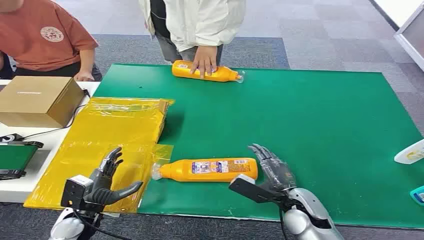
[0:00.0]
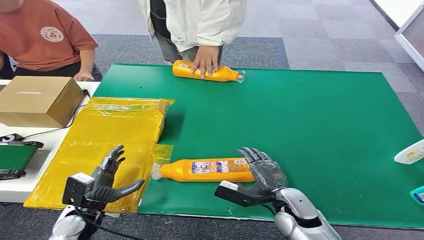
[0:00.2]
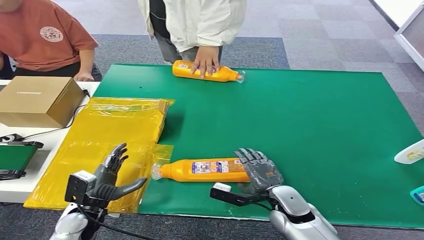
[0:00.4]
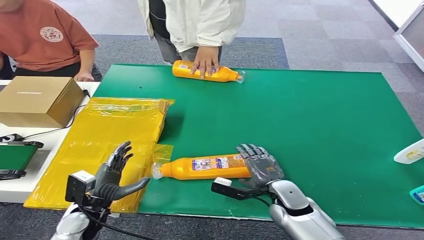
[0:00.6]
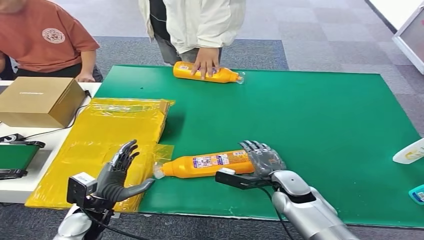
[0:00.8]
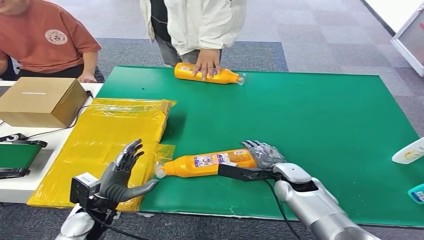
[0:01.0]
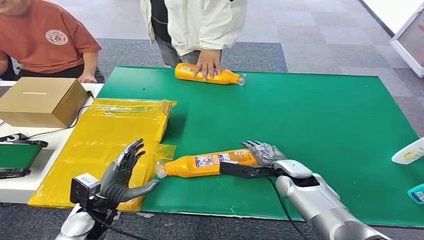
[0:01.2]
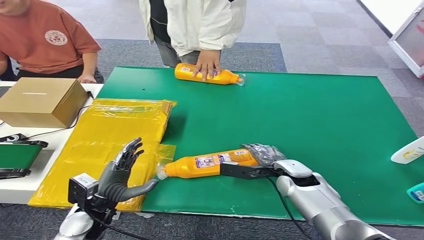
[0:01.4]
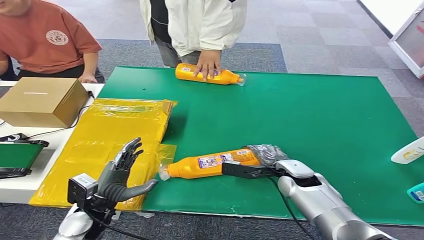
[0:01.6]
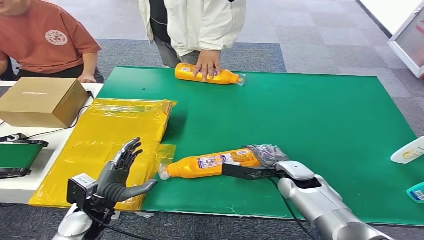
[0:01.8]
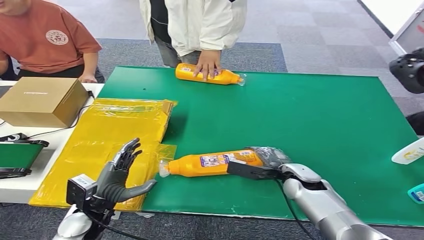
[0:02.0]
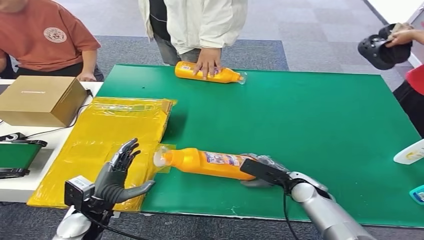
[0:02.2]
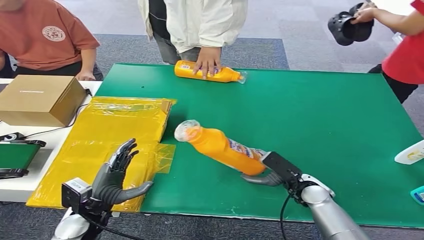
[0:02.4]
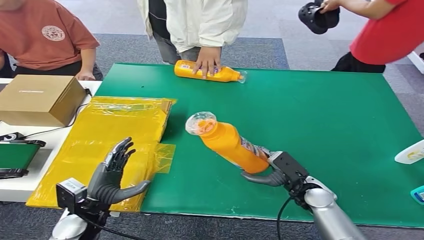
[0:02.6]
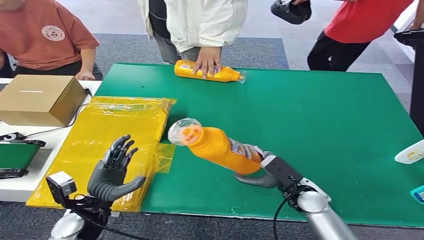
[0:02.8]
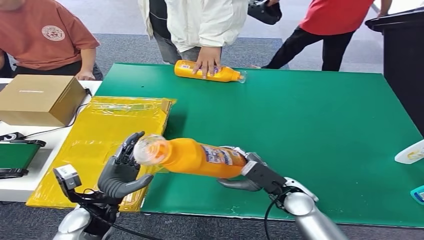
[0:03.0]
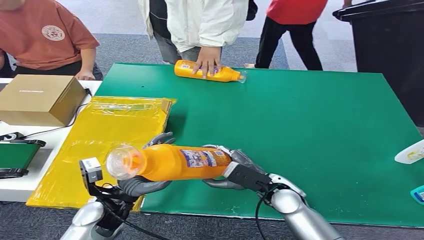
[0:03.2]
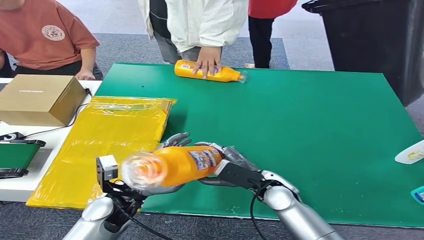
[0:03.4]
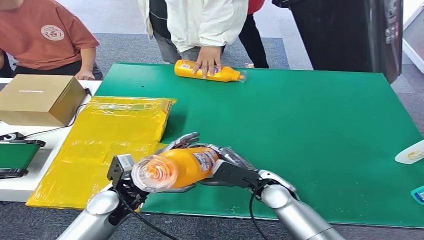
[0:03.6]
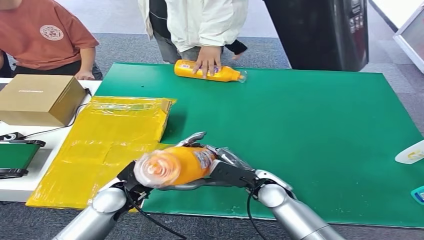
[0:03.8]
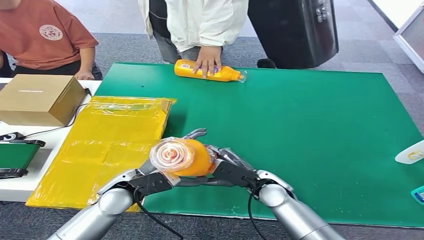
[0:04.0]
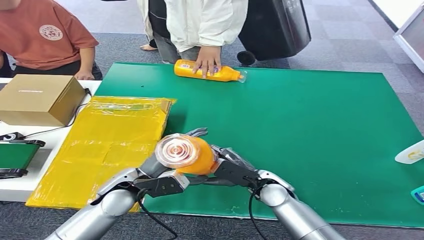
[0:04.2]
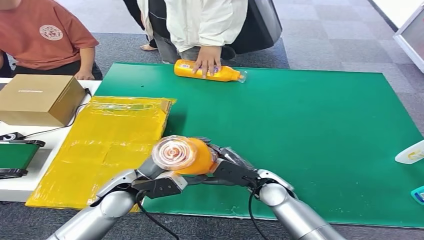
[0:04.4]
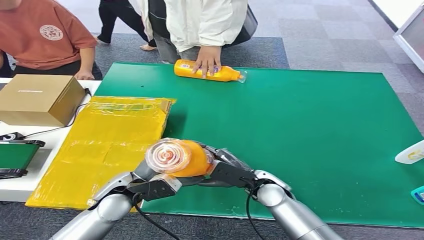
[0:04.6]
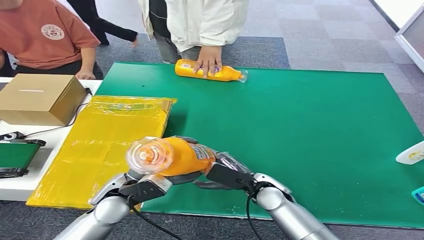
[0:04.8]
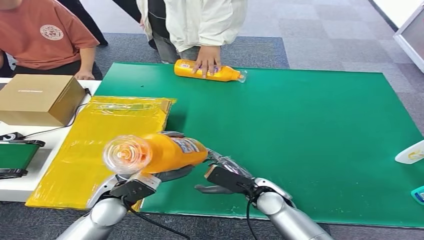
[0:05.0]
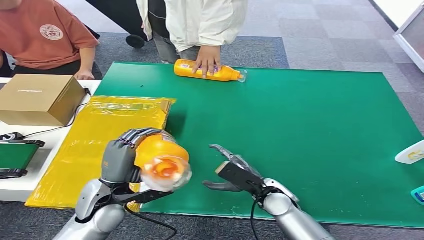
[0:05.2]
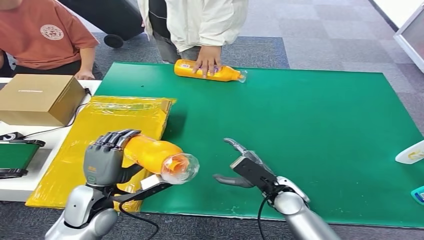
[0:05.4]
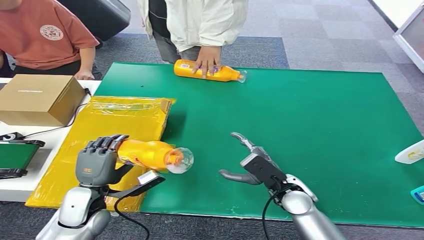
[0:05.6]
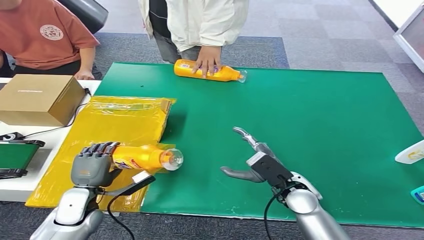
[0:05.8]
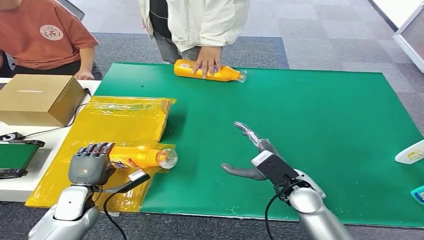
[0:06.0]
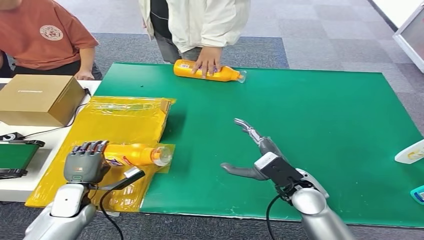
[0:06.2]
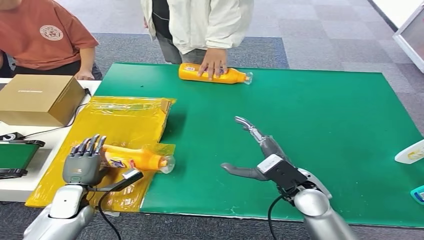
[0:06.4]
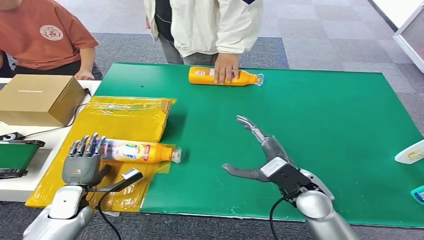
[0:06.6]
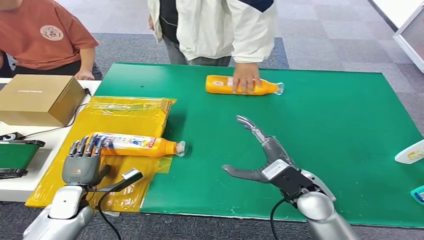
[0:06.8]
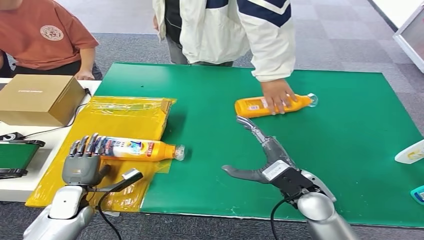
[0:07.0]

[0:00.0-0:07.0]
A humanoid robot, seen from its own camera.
Step, 0:00.0 to 0:02.6: Pick up the bottle from the table.
Step, 0:02.8 to 0:07.0: Turn the bottle to the front side.

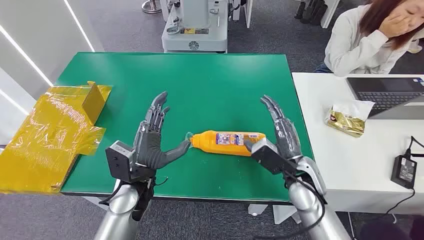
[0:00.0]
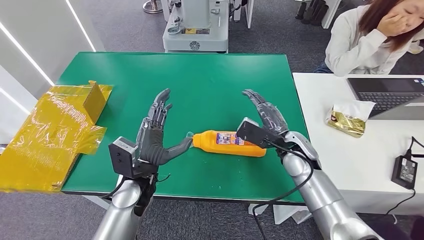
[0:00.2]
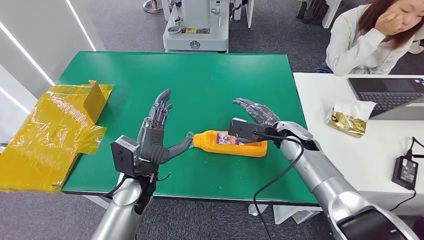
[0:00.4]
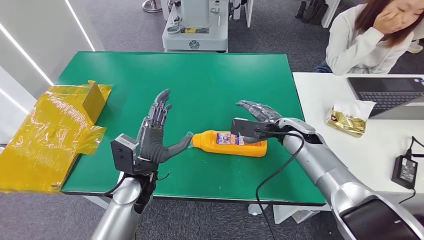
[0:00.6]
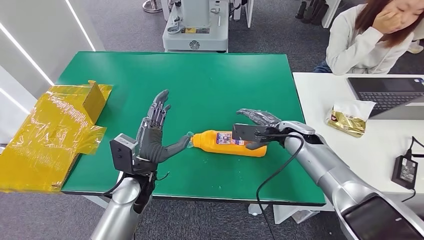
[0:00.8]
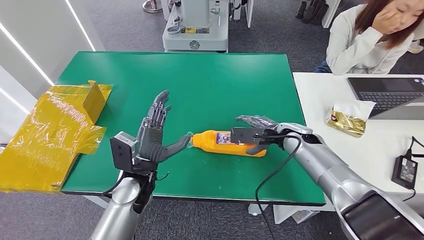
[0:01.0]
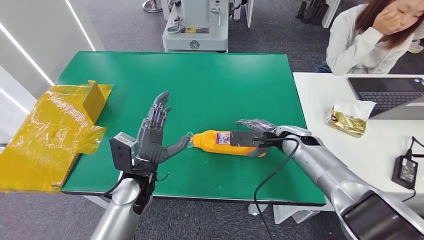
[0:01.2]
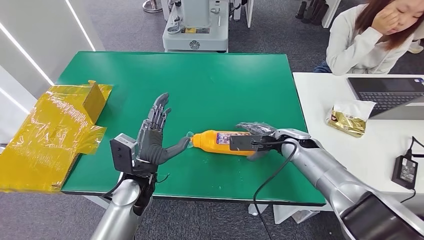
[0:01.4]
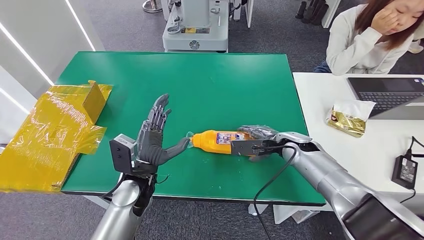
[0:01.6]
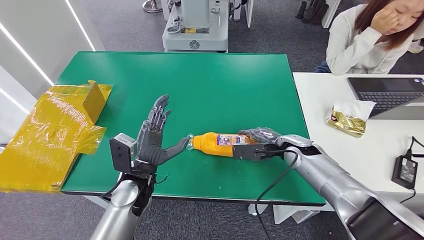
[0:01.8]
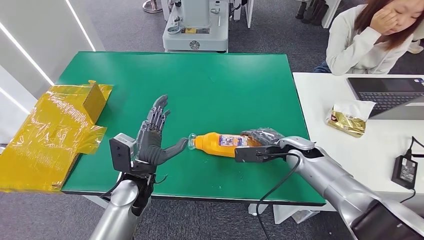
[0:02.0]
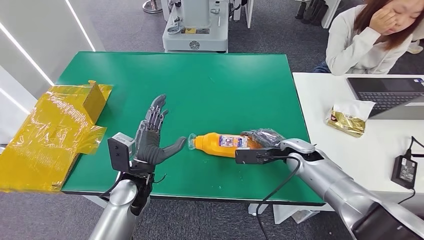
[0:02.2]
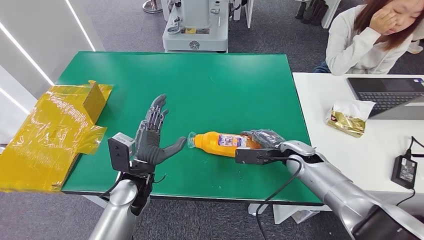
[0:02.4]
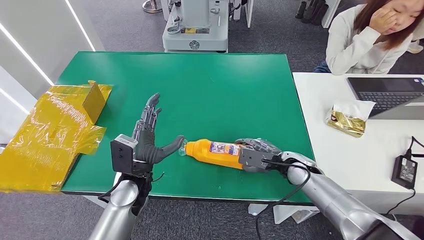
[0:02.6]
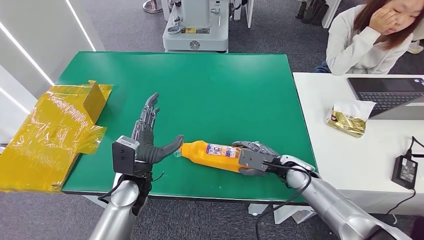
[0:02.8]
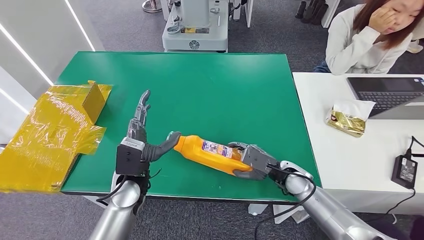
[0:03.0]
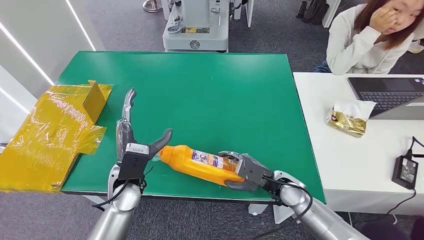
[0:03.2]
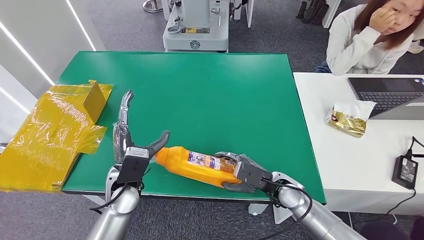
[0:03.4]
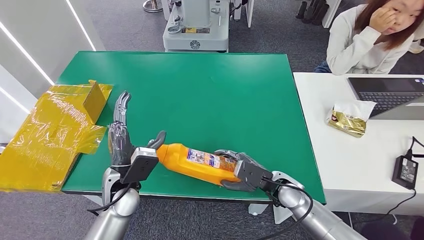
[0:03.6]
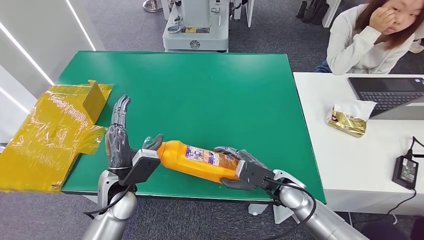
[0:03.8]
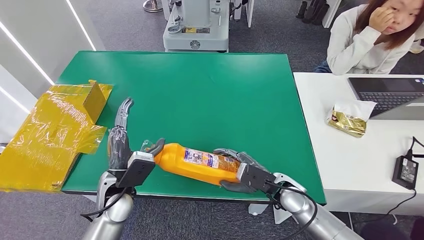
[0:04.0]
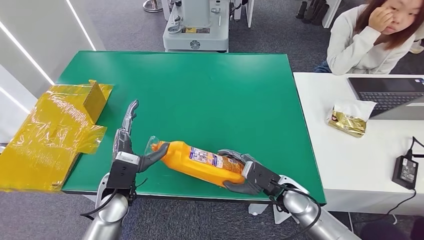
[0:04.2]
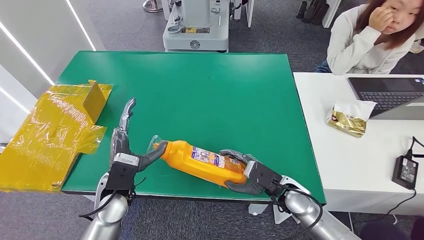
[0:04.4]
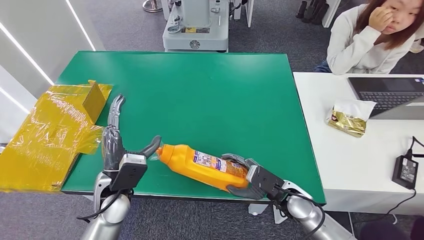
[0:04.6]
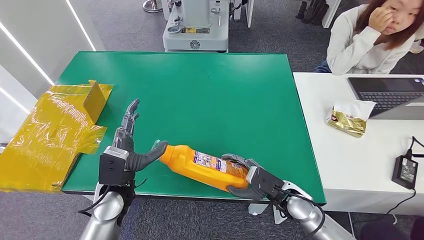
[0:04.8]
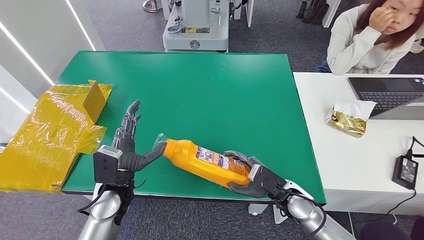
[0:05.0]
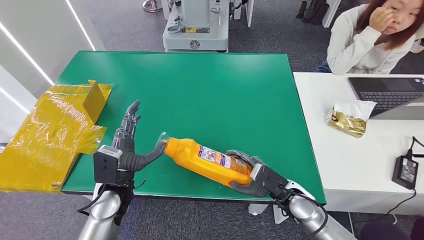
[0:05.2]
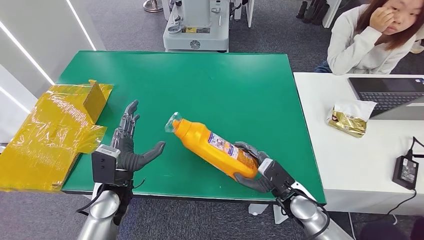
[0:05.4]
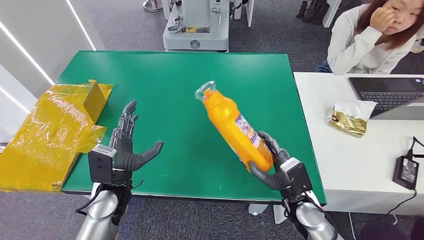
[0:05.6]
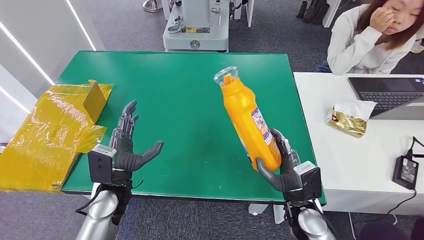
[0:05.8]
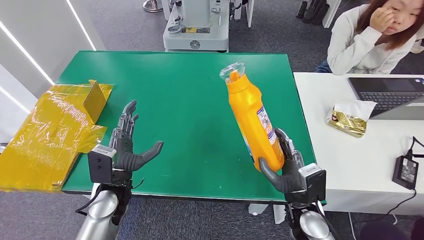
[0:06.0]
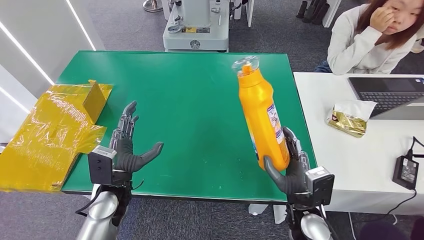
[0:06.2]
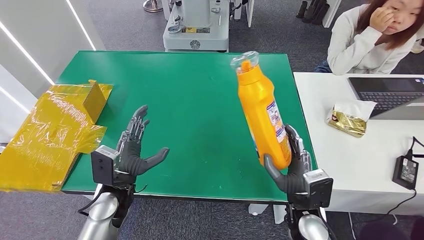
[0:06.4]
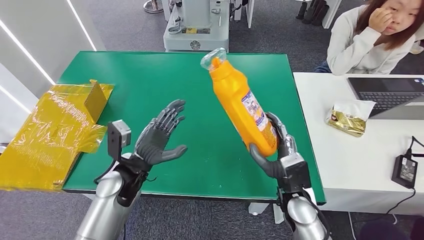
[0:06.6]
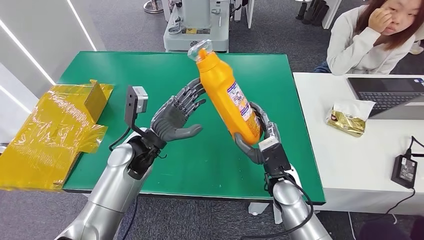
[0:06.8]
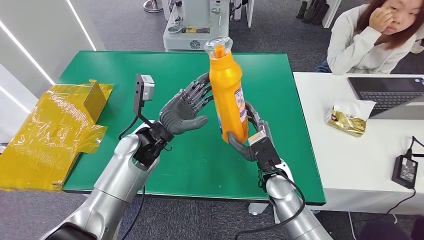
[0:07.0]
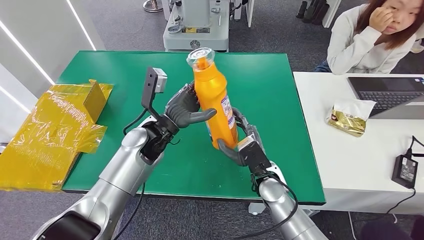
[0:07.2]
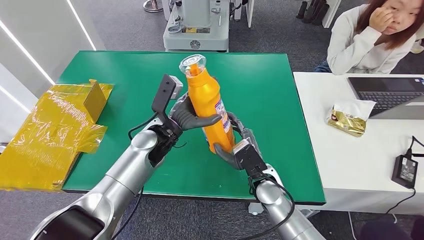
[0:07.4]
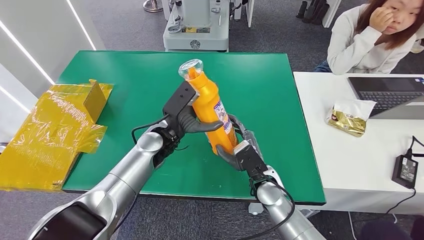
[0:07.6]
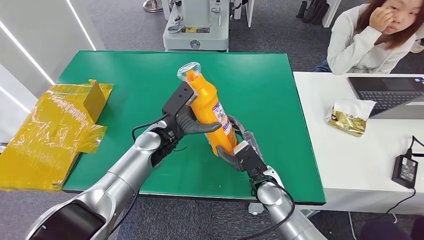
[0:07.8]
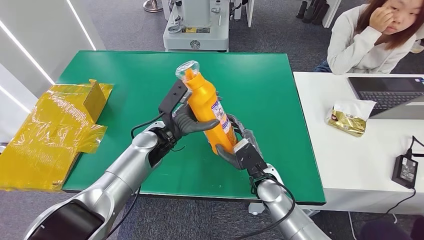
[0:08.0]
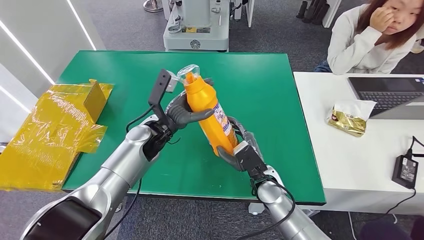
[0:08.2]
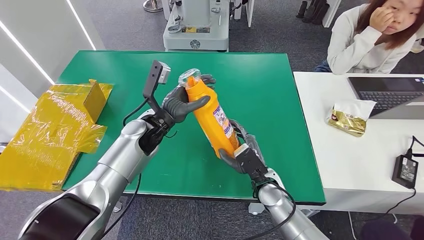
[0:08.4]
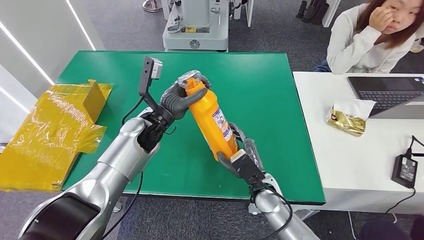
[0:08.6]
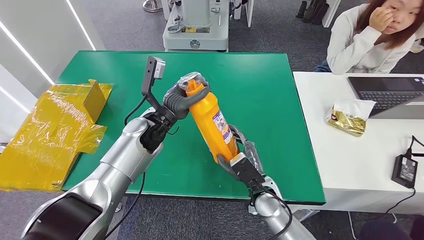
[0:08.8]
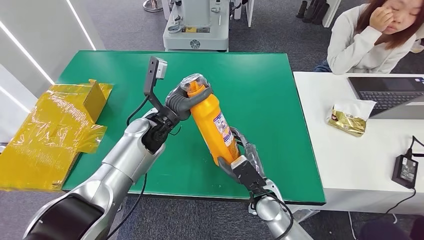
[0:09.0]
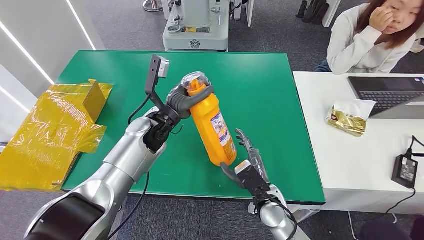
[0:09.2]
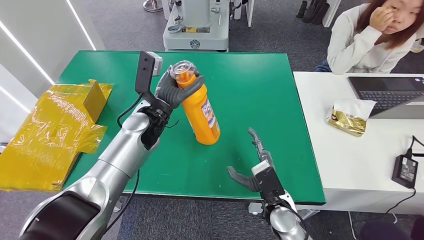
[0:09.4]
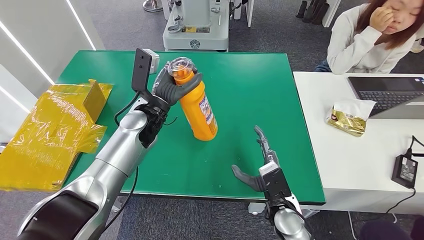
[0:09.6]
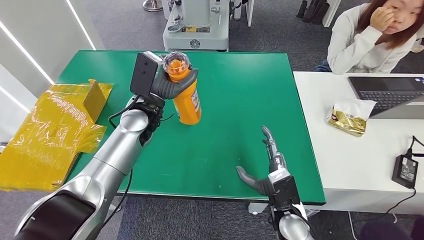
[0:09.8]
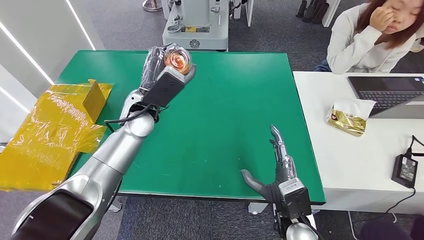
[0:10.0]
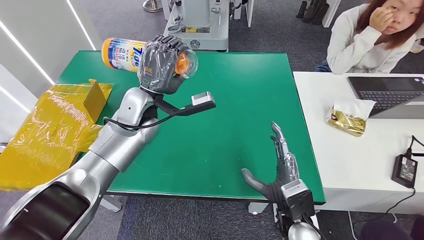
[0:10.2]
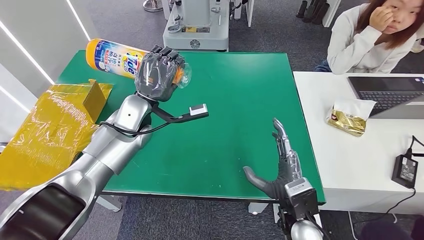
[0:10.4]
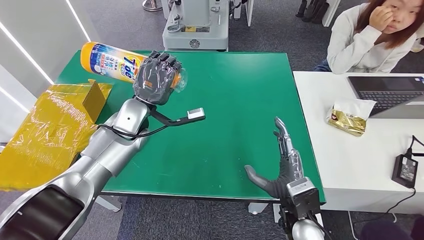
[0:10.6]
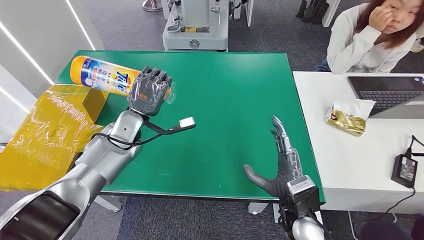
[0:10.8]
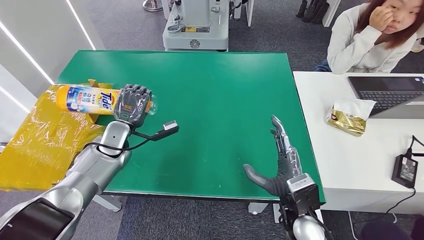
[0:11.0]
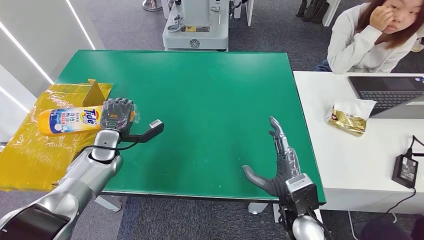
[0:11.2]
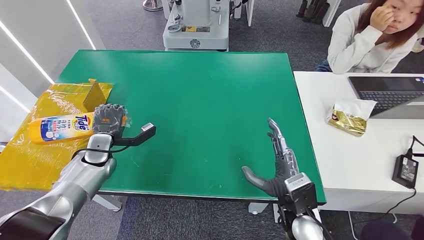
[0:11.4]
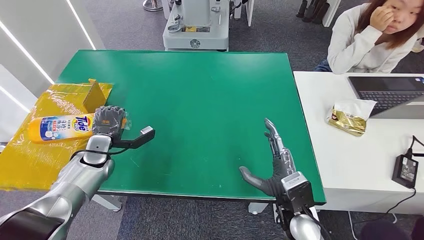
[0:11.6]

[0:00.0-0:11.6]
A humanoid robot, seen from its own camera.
Step, 0:00.0 to 0:05.4: Pick up the bottle from the table.
0:01.4 to 0:02.8: The right hand moves downward and backward, some 10 cm.
0:02.8 to 0:04.4: The right hand goes roughly 5 cm backward.
0:05.8 to 0:07.2: The right hand travels to the left and forward by some 10 cm. Meanwhile the left hand is displaced forward, upward and to the right by some 15 cm.
0:07.2 to 0:08.8: The right hand ends up about 5 cm from where it was.
0:08.8 to 0:10.2: The right hand goes approximately 10 cm backward and upward; the left hand goes roughly 5 cm upward.
0:10.2 to 0:11.6: The left hand travels to the left and downward by roughly 25 cm.
